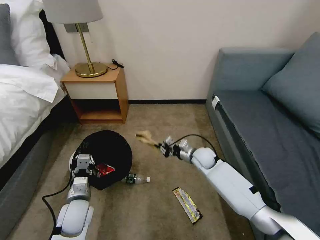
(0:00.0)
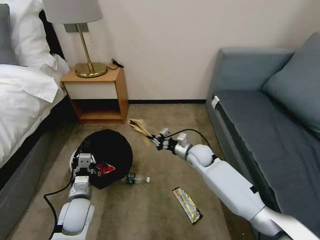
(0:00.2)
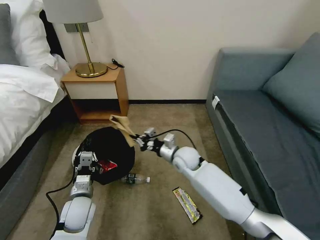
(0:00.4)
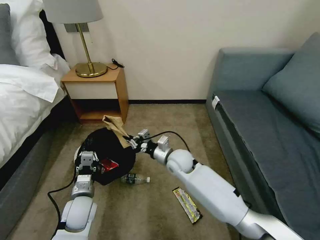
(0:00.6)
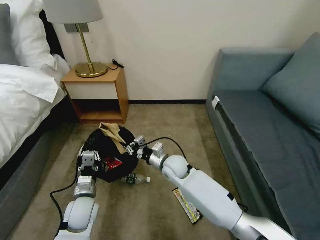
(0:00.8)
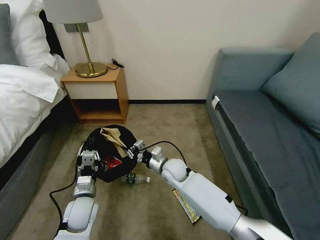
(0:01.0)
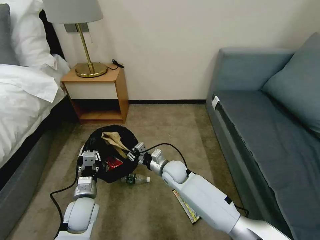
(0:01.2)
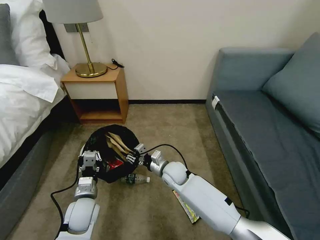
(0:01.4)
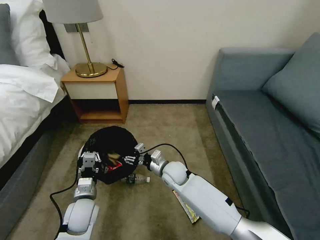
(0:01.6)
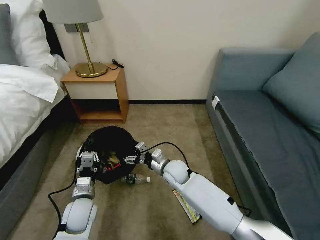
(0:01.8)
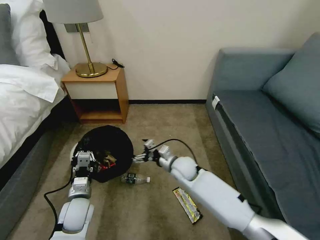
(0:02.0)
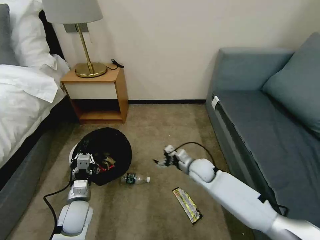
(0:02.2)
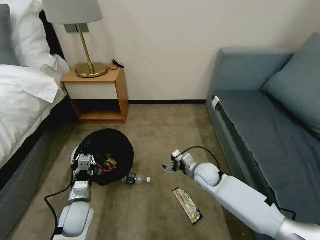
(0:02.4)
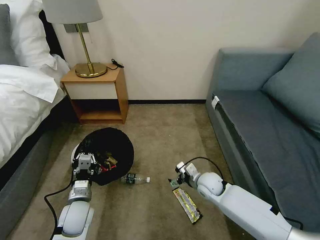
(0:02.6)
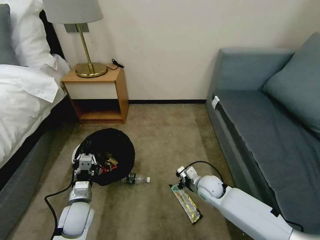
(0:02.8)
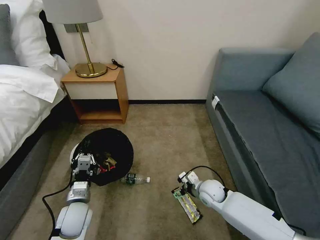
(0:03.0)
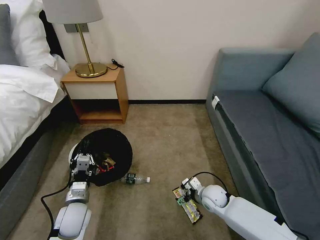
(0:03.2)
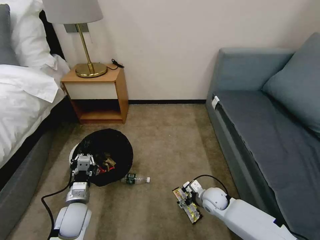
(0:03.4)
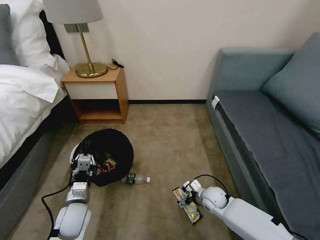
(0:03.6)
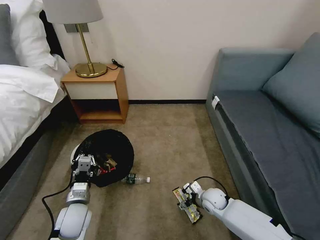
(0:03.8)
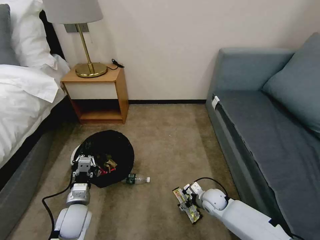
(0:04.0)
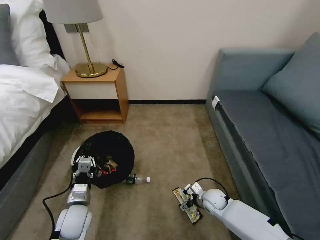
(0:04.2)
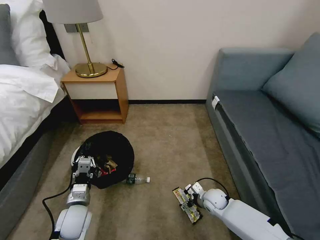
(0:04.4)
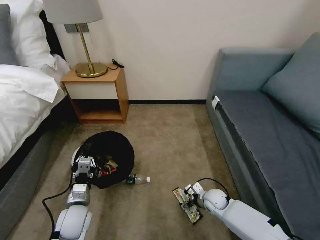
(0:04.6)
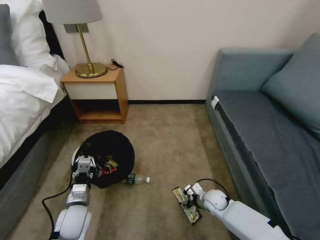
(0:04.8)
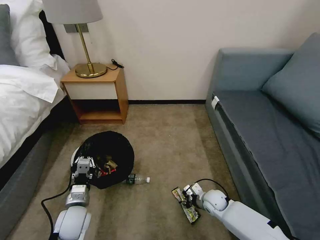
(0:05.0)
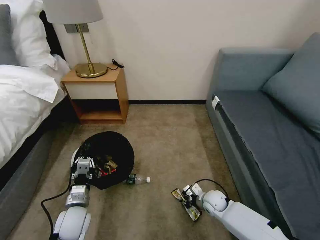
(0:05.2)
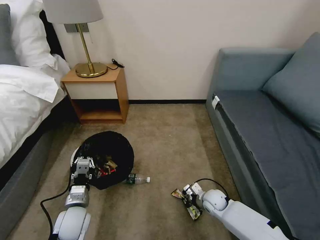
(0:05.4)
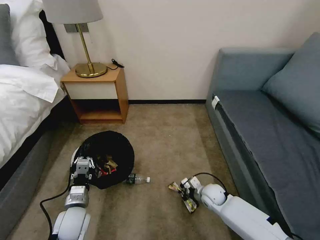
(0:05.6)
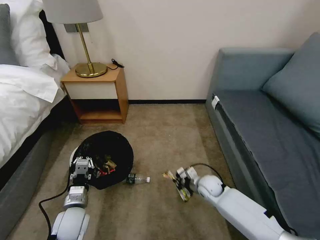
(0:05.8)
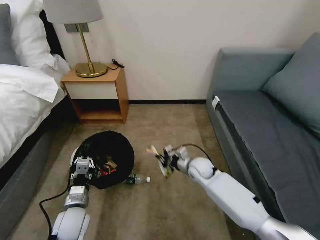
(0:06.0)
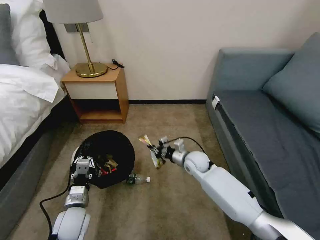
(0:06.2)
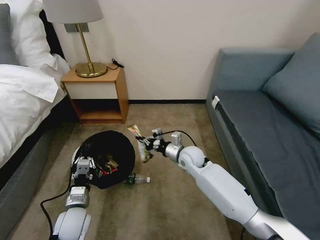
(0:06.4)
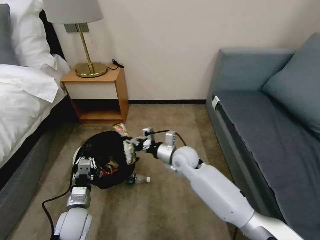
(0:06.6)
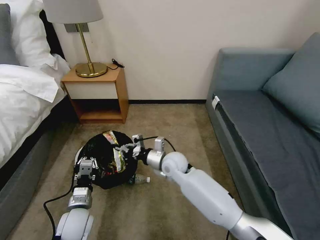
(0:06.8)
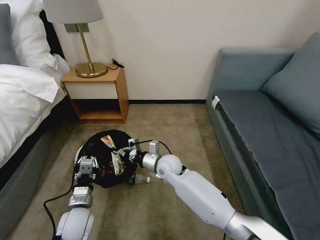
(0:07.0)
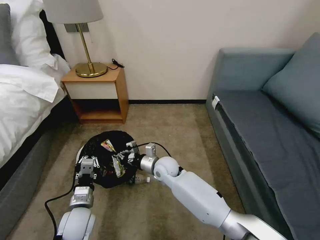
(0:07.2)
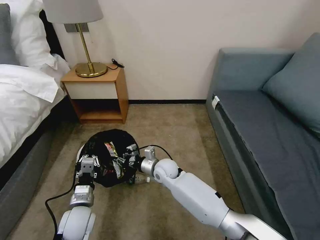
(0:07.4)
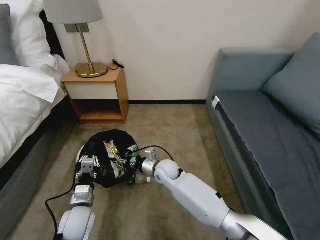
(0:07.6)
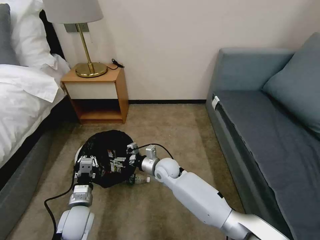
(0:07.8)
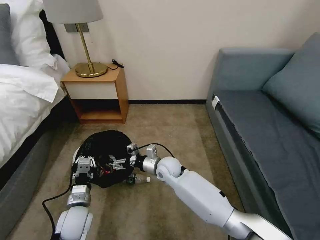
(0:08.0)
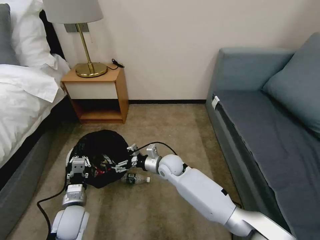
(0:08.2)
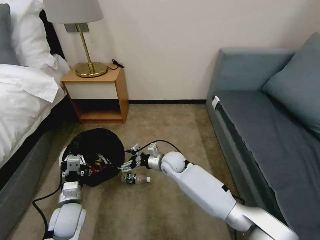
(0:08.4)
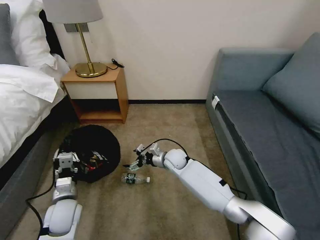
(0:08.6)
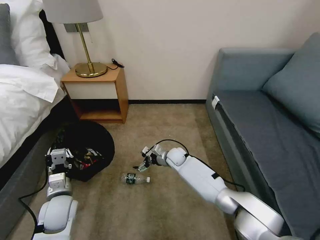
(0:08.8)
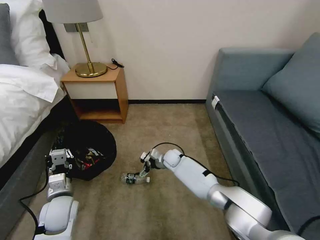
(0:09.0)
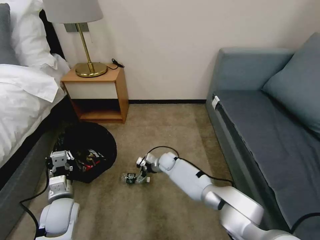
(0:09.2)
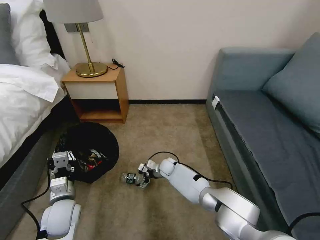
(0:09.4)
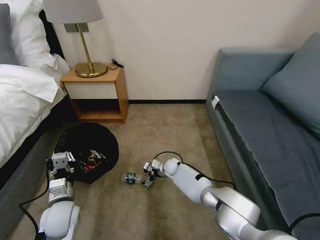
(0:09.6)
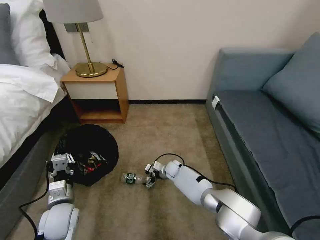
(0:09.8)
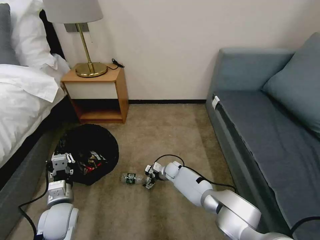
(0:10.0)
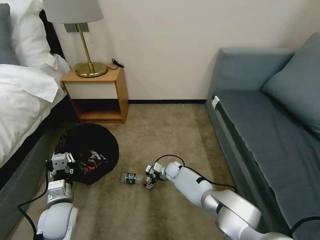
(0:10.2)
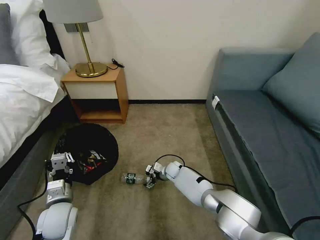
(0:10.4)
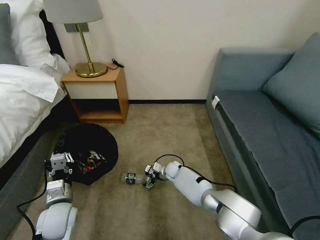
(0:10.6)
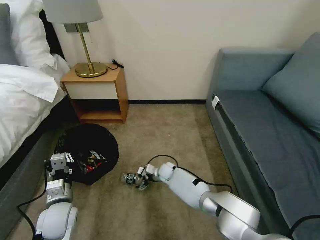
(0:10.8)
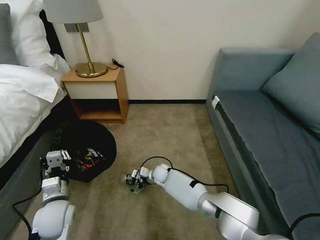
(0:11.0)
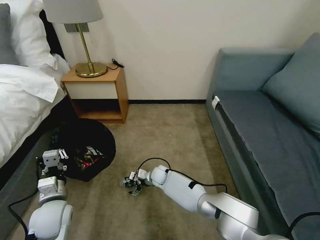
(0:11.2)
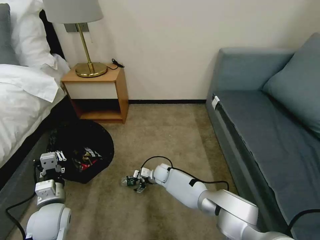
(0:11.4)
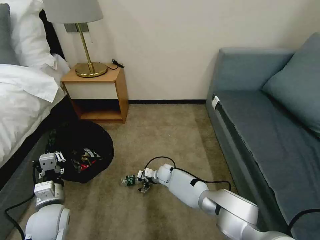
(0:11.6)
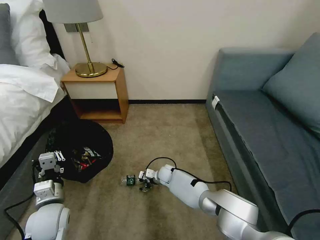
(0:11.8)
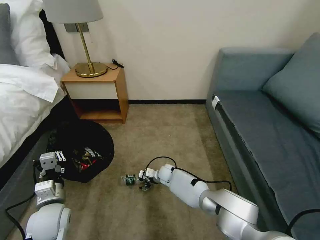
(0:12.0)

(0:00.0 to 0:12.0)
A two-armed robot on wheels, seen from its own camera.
Task of the whole recording: Pick up the trash bin, then pick up the garbage on the floor and place it into the trash bin.
0:00.0 - 0:01.6: The right gripper heads to the left and backward, covering some 15 cm, and opens up.
0:01.6 - 0:03.0: The right gripper is displaced to the right by about 15 cm, and opens up.
0:03.0 - 0:04.4: The right gripper travels downward by approximately 5 cm.
0:04.4 - 0:06.0: The right gripper shifts some 15 cm upward, forward and to the left, and closes up.
0:06.0 - 0:07.6: The right gripper heads to the left, covering some 15 cm, and opens.
0:07.6 - 0:09.0: The left gripper ends up some 5 cm from where it was, while the right gripper is displaced forward and downward by approximately 10 cm, and opens its fingers.
0:09.0 - 0:10.4: The right gripper moves downward, approximately 10 cm.

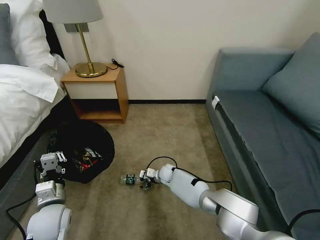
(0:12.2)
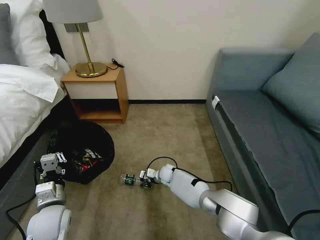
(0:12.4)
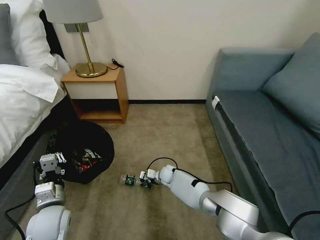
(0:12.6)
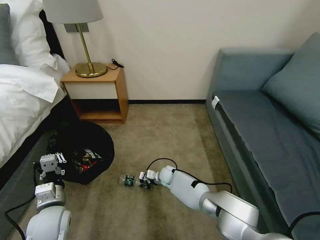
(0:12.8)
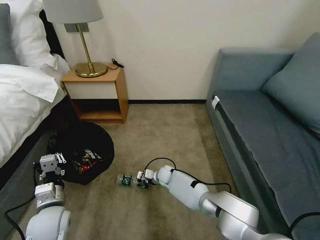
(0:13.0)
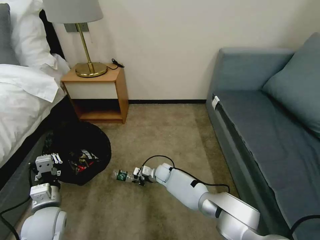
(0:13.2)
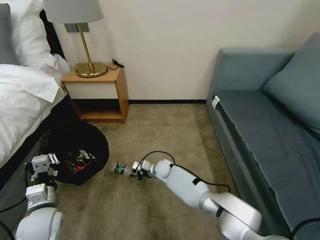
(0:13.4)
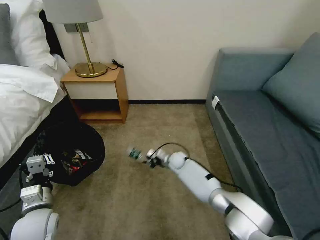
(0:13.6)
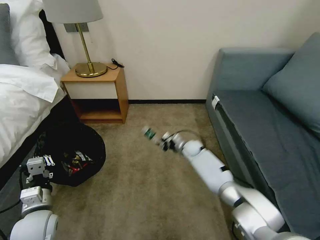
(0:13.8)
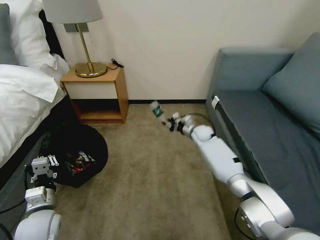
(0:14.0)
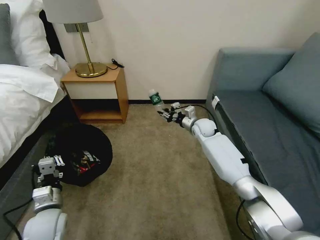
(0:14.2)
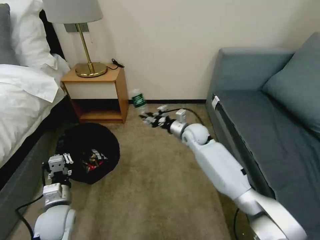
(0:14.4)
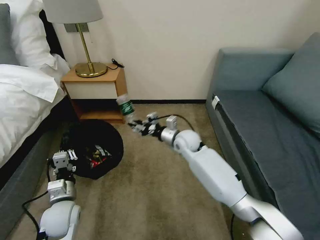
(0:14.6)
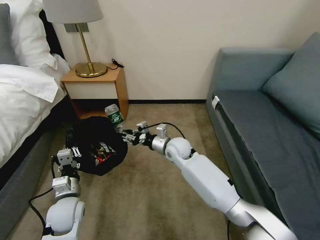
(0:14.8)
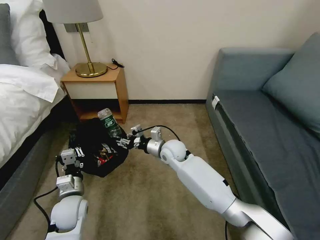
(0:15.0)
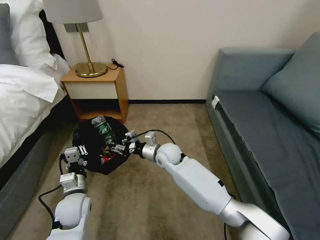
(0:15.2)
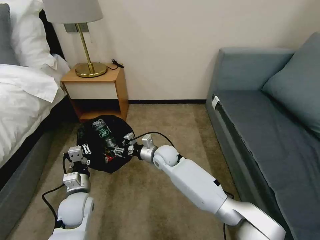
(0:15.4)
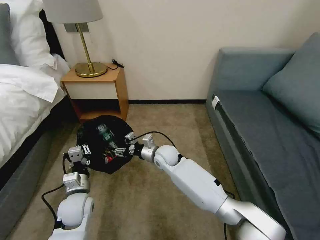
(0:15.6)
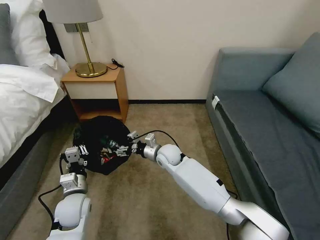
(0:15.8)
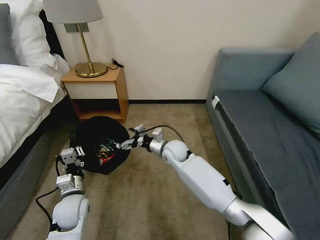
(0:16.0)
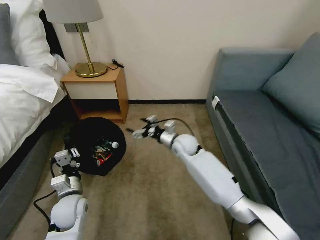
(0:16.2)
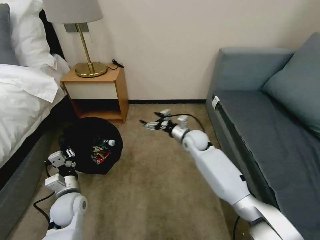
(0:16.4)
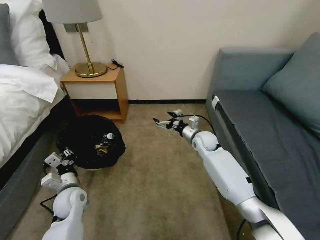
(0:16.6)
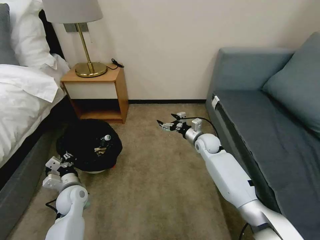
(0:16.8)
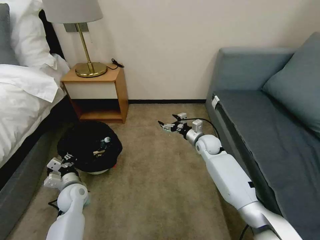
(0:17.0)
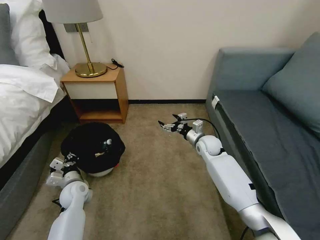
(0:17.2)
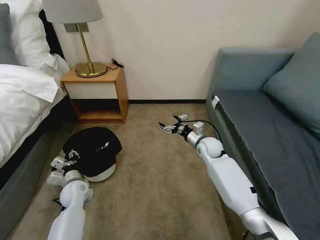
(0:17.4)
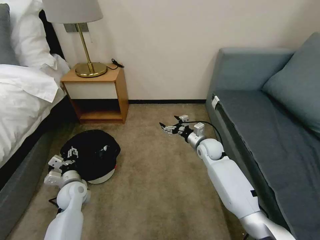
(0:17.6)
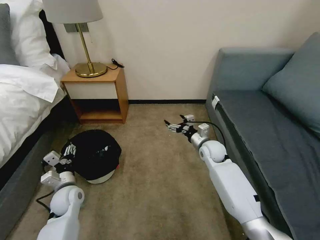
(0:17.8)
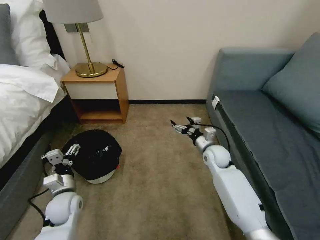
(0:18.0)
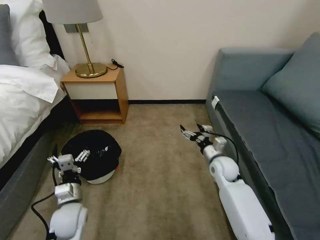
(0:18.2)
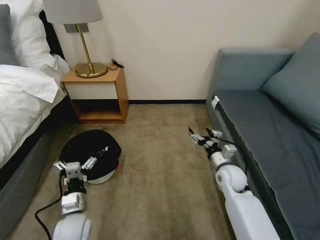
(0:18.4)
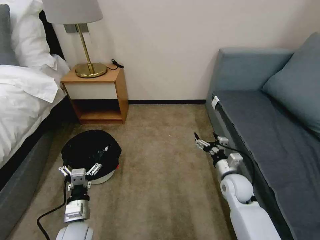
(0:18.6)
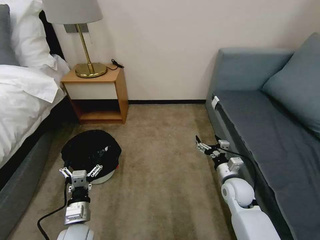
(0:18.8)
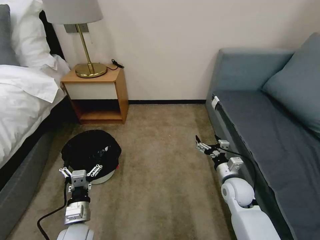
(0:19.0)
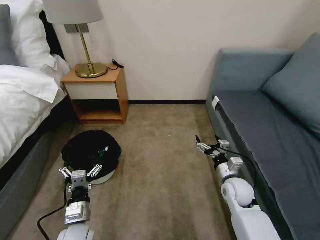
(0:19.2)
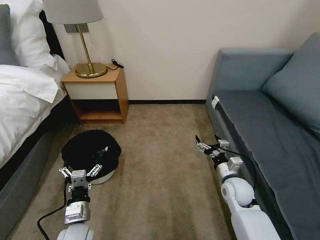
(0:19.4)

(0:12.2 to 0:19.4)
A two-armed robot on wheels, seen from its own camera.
Task of the whole recording: Pick up the trash bin, then pick up the garbage on the floor and place it into the trash bin.
0:12.2 - 0:13.6: The right gripper shifts by approximately 10 cm, and closes up.
0:13.6 - 0:15.0: The right gripper heads upward, covering approximately 15 cm, while the left gripper shifts approximately 5 cm to the right.
0:15.0 - 0:16.6: The right gripper heads to the right and forward, covering some 15 cm, and opens up.
0:16.6 - 0:18.0: The left gripper opens; the right gripper moves backward, some 5 cm.
0:18.0 - 0:19.4: The right gripper heads backward, covering about 10 cm. Meanwhile the left gripper goes roughly 10 cm backward and to the right.

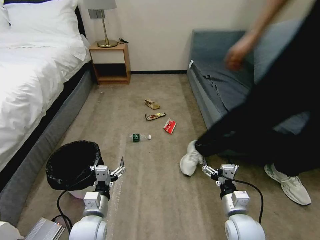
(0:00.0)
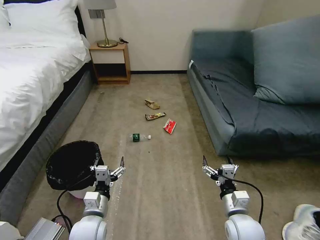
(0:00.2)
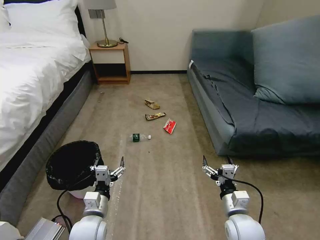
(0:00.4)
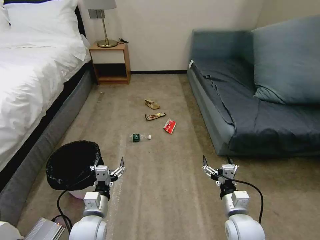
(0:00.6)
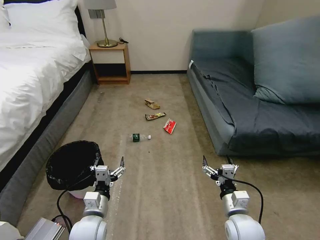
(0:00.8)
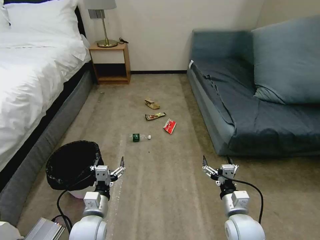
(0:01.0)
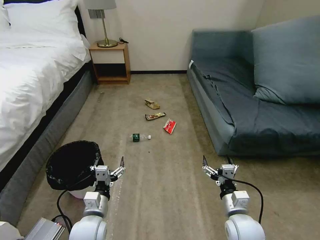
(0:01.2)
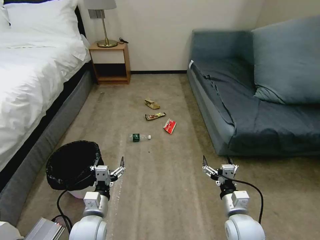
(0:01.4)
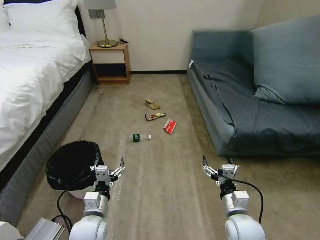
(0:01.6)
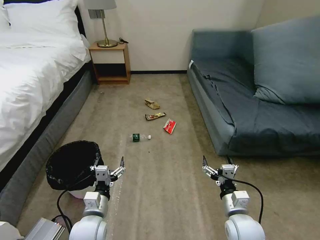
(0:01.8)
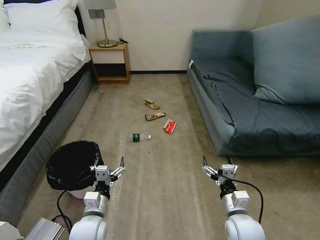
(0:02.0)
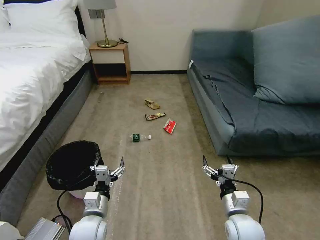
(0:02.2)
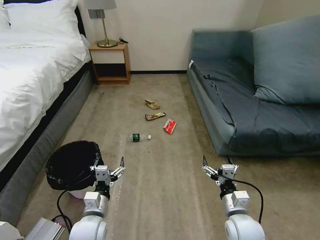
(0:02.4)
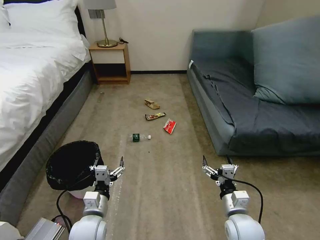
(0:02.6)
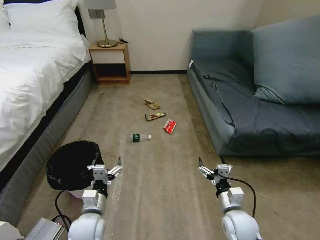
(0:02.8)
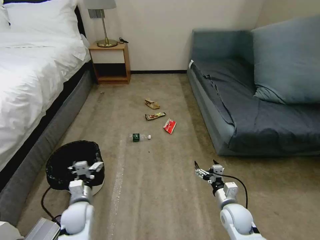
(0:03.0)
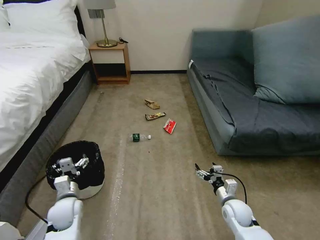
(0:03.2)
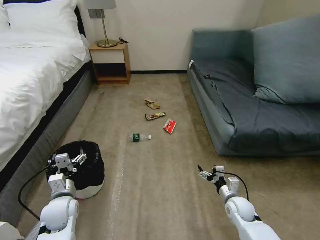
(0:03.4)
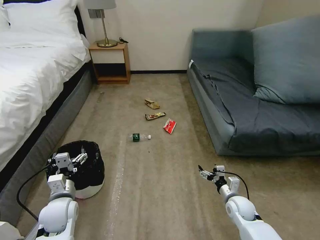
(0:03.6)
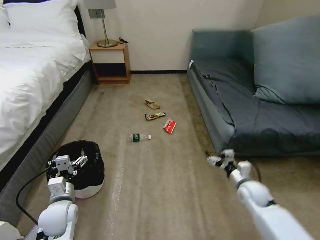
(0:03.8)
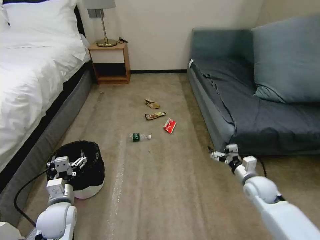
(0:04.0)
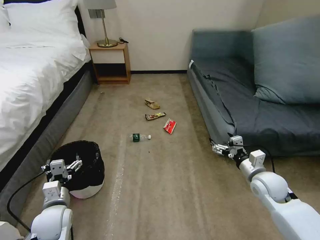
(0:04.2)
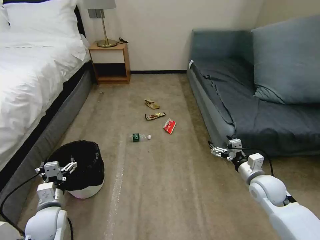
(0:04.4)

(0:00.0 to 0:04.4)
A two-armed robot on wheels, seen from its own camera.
Task of the whole recording: Pick up the trash bin, then pick up the garbage on the floor and place it into the trash bin.
0:01.4 - 0:03.0: The right gripper moves downward and forward, roughly 10 cm, while the left gripper moves to the left and forward, roughly 10 cm.
0:03.0 - 0:04.4: The left gripper is displaced to the left by approximately 5 cm. Meanwhile the right gripper goes roughly 15 cm upward, to the right and forward.
